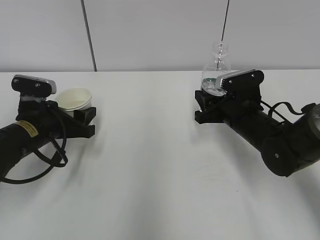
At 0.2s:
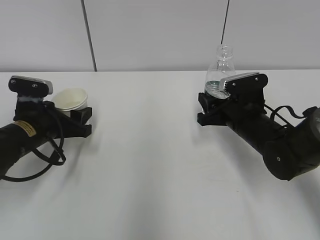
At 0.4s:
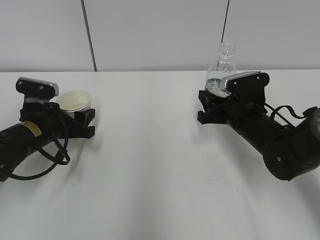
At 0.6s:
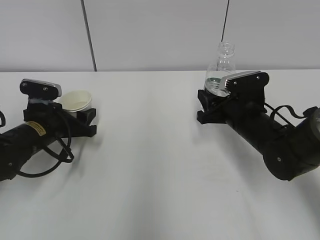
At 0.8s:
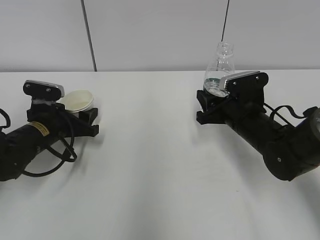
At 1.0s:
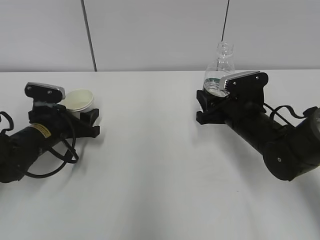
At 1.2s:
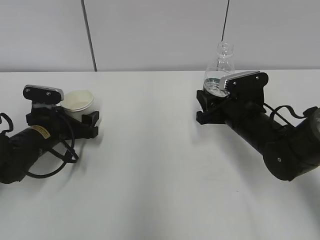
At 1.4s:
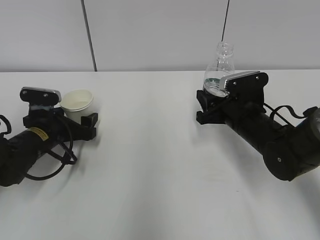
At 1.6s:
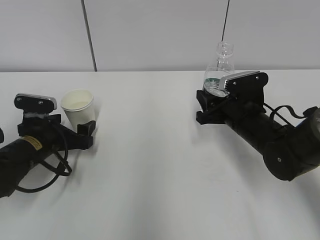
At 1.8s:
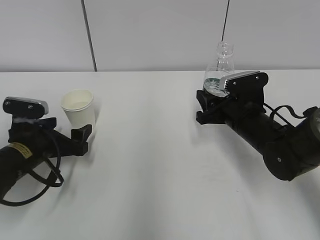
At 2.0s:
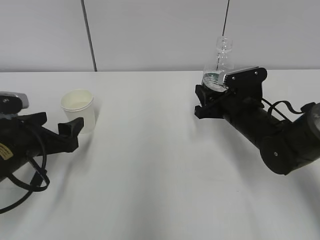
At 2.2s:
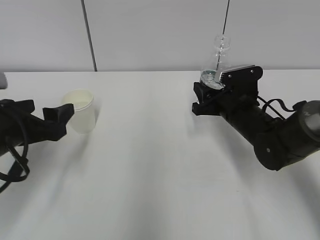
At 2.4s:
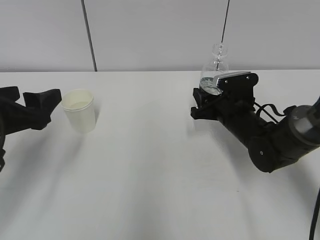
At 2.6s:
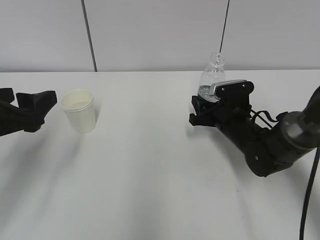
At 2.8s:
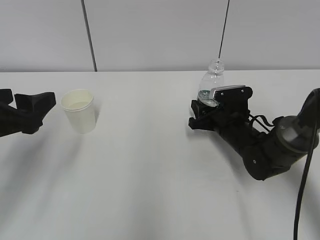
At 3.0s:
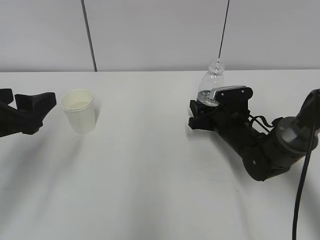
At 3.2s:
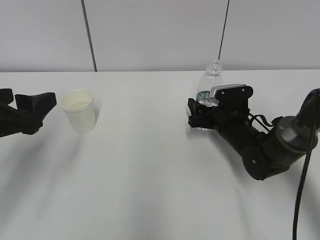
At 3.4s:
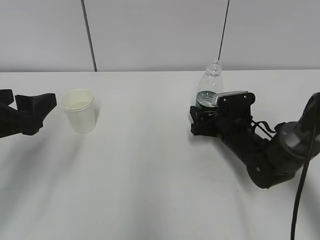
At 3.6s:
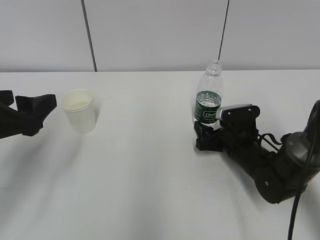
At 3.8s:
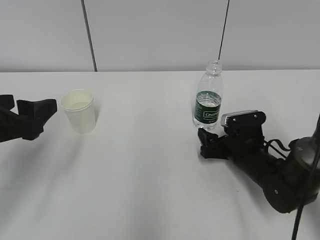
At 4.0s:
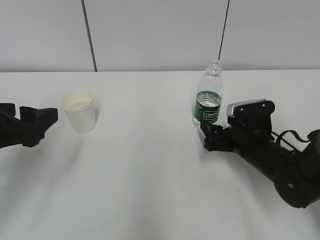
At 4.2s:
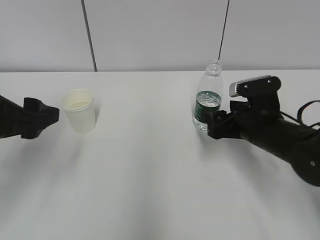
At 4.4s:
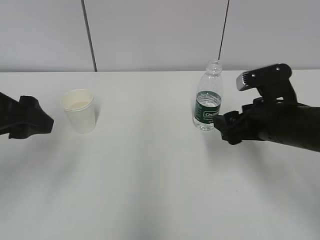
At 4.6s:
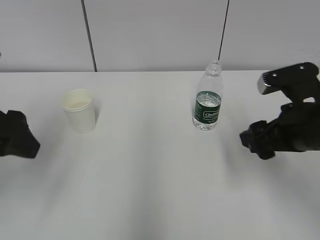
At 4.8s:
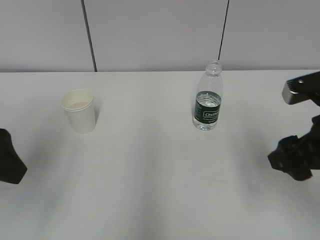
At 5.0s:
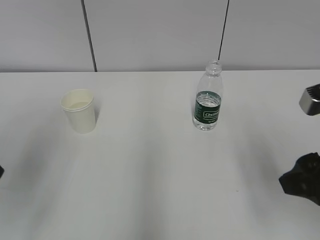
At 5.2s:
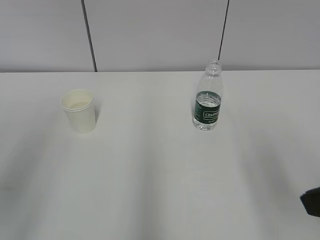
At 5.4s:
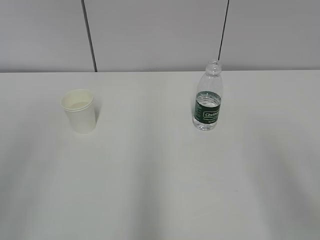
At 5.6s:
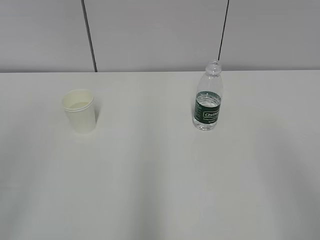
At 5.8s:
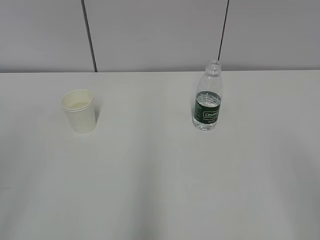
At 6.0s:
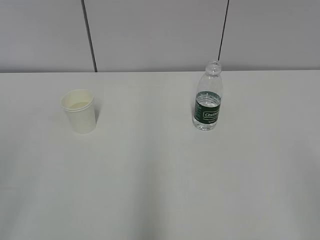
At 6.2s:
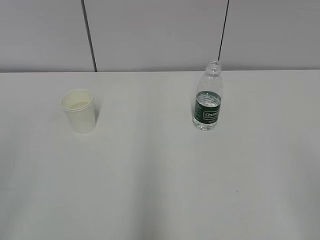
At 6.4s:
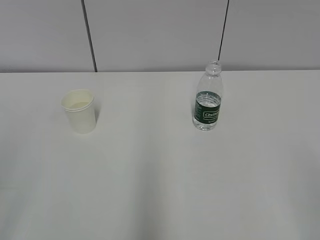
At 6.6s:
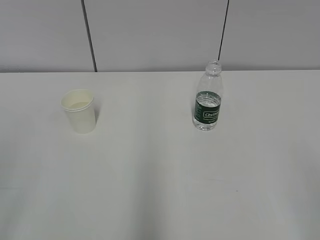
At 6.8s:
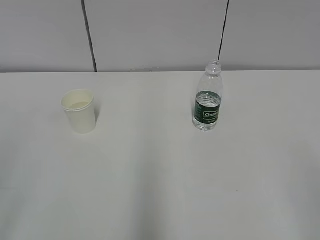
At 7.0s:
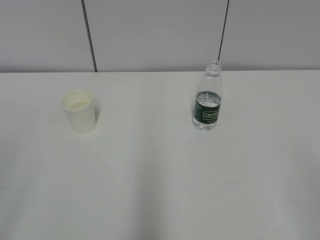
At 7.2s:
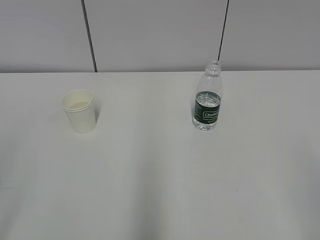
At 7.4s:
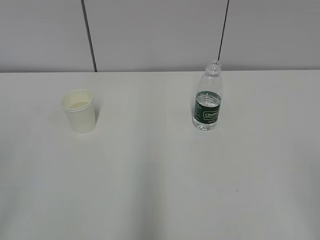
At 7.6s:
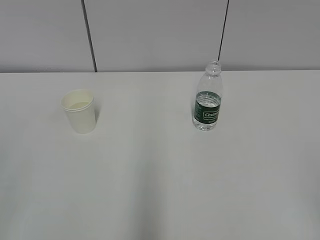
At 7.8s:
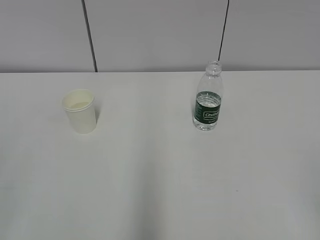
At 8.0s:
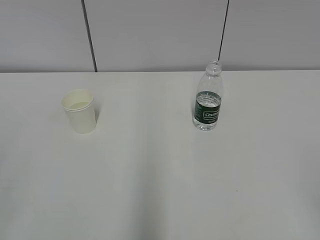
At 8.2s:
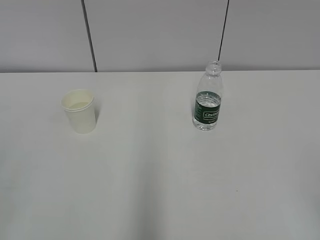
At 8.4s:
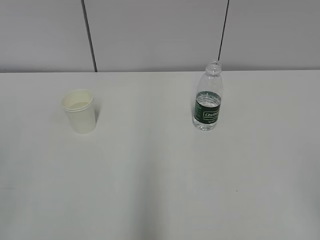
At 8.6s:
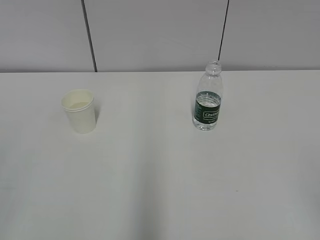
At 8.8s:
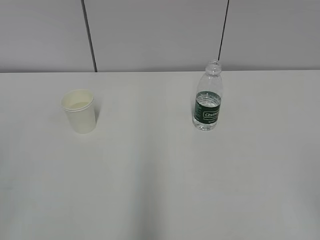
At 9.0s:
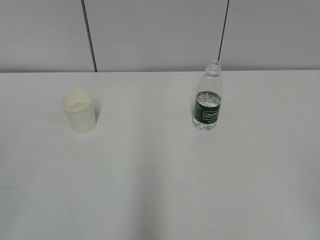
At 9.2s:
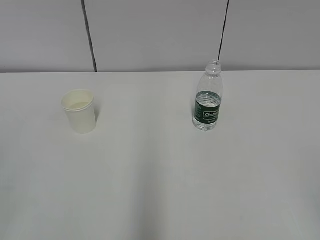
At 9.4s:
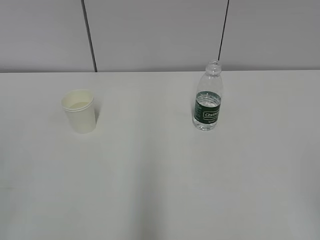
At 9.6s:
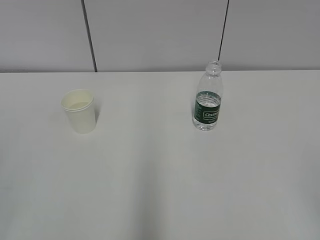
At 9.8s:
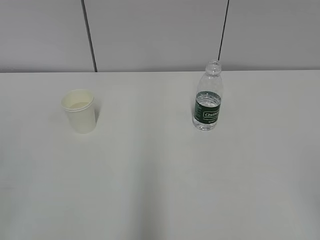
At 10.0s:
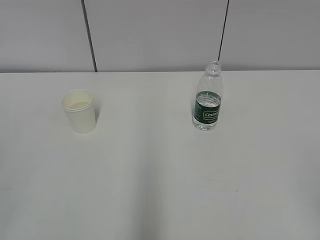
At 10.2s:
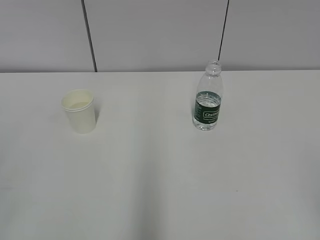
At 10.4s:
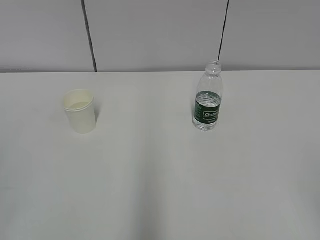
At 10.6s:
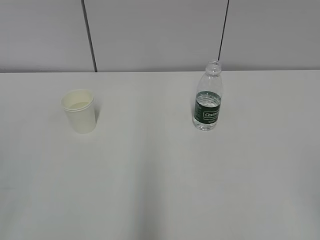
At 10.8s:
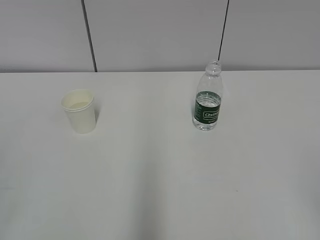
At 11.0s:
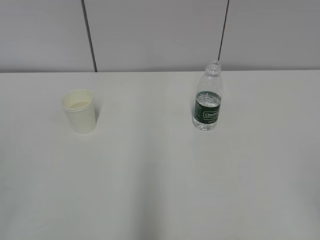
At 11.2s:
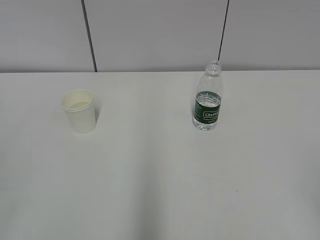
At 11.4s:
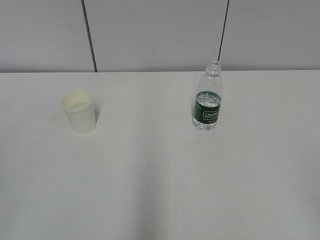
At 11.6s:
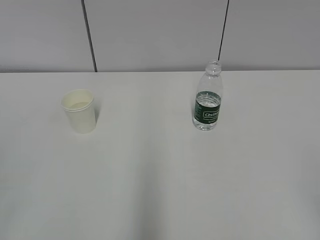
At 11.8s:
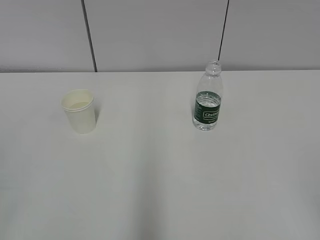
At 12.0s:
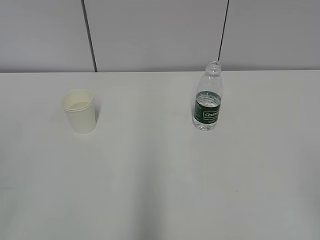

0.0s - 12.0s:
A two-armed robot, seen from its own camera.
0.0s - 1.6s: The left gripper opens its fingers.
1.6s - 3.0s: The left gripper travels upward and backward by some 20 cm; the right gripper goes about 5 cm downward.
3.0s - 4.4s: The right gripper moves upward and backward, roughly 15 cm, and opens.
4.4s - 6.0s: Both grippers move backward, some 25 cm.
7.6s - 12.0s: Neither gripper changes place.

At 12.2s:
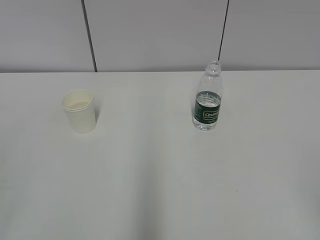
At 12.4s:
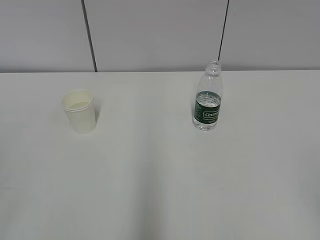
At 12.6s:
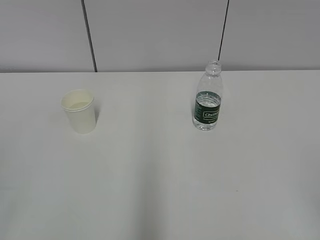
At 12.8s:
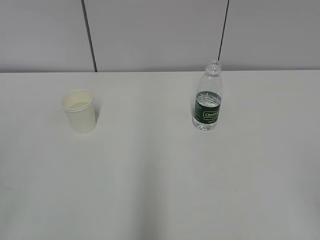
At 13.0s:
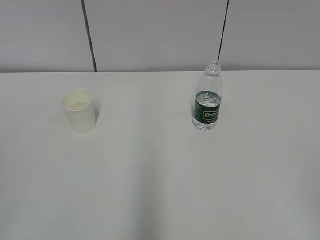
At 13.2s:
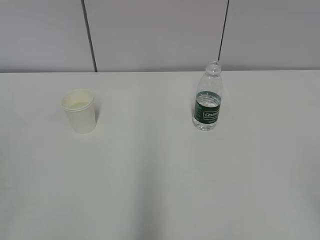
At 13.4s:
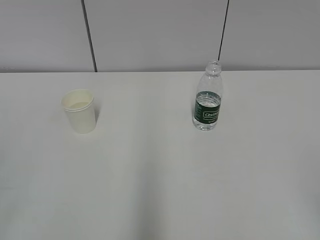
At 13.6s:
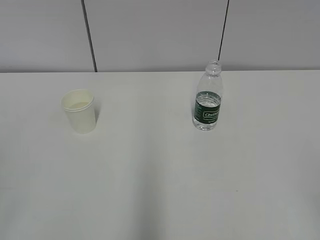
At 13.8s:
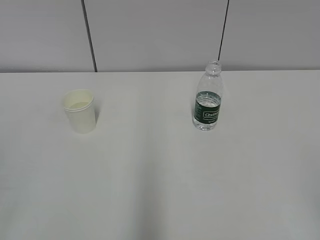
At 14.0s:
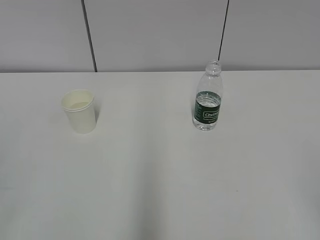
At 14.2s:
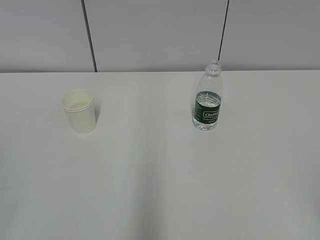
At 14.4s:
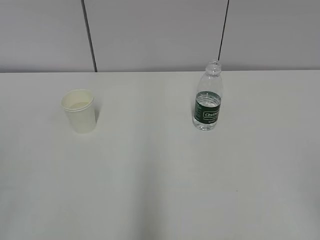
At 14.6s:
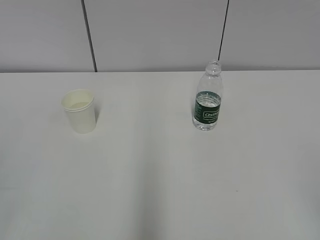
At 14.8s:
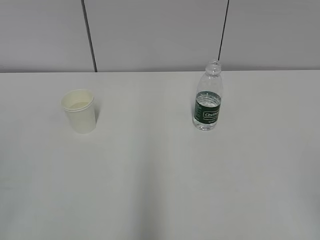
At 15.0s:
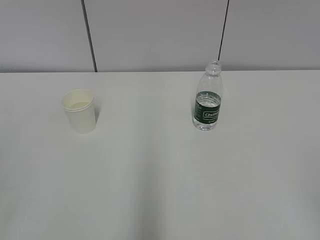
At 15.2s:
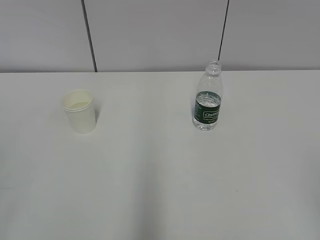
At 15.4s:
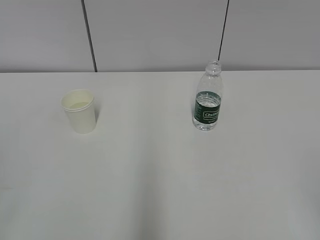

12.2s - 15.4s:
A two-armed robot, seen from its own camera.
12.2s - 15.4s: Both grippers stay put.

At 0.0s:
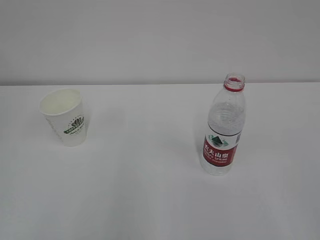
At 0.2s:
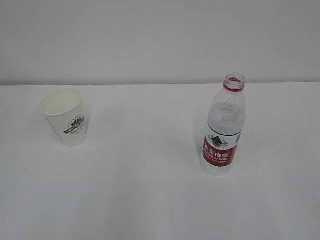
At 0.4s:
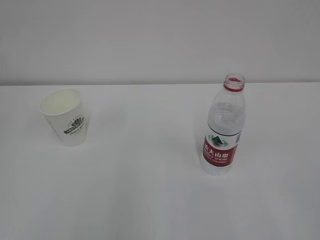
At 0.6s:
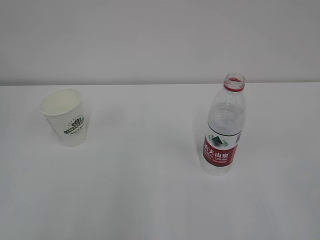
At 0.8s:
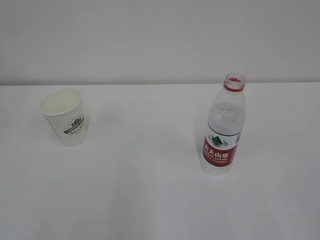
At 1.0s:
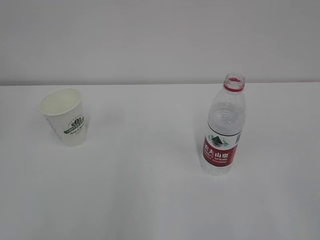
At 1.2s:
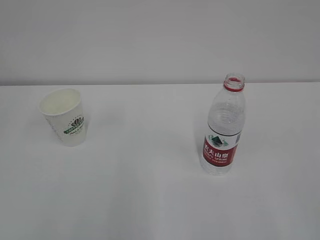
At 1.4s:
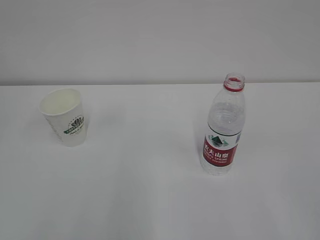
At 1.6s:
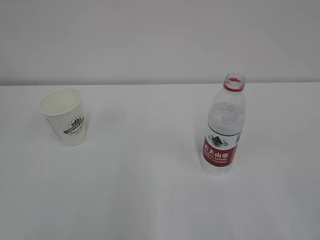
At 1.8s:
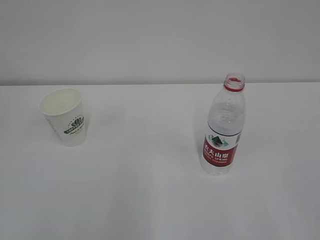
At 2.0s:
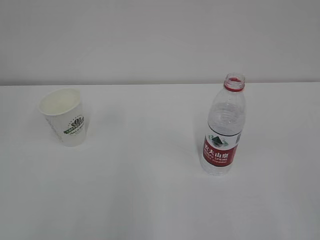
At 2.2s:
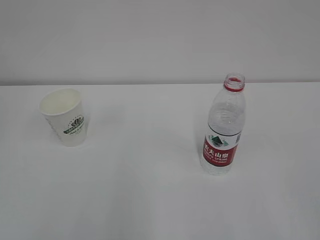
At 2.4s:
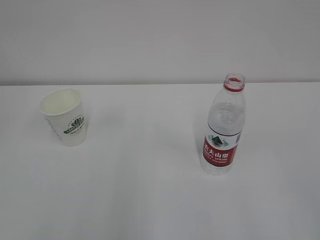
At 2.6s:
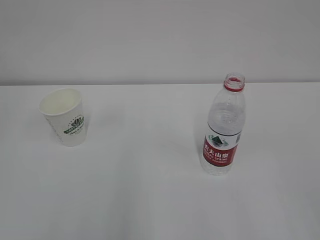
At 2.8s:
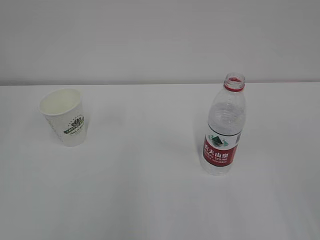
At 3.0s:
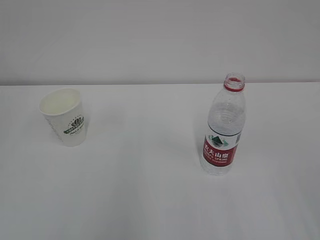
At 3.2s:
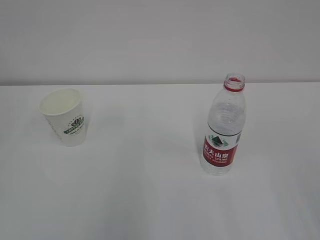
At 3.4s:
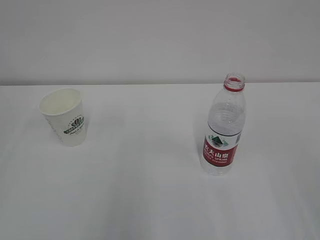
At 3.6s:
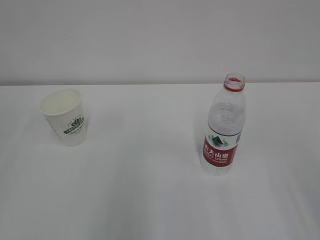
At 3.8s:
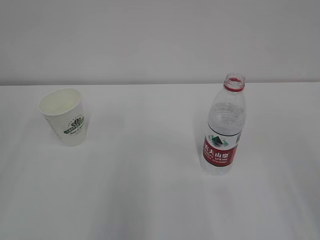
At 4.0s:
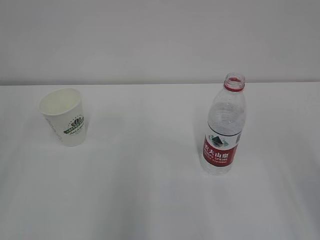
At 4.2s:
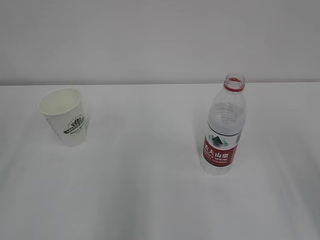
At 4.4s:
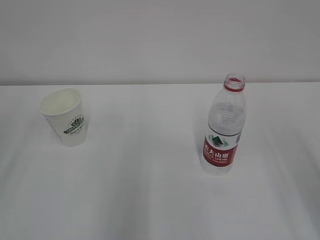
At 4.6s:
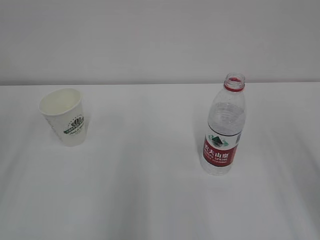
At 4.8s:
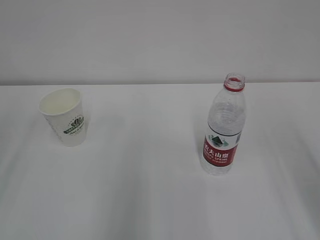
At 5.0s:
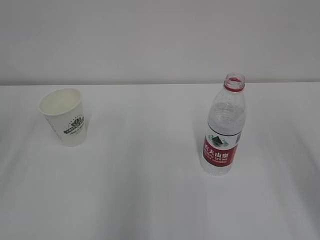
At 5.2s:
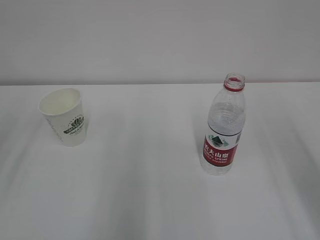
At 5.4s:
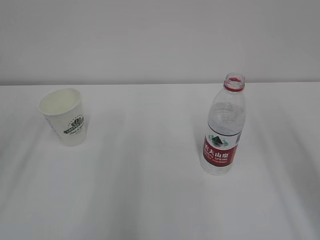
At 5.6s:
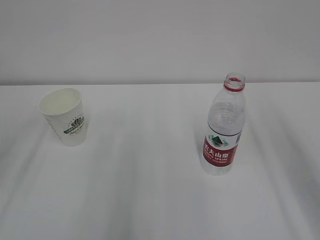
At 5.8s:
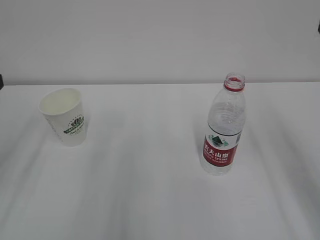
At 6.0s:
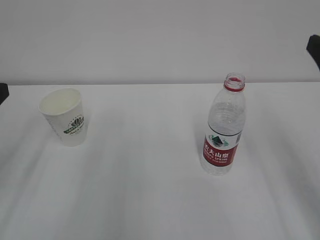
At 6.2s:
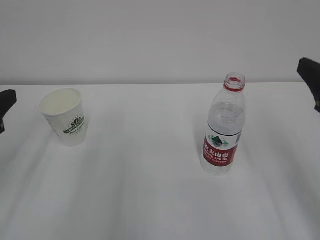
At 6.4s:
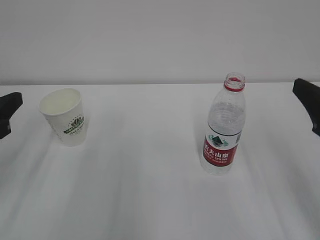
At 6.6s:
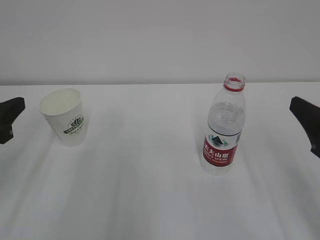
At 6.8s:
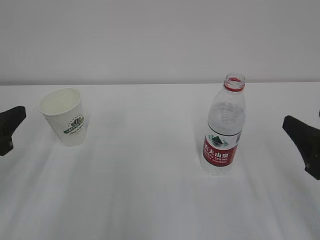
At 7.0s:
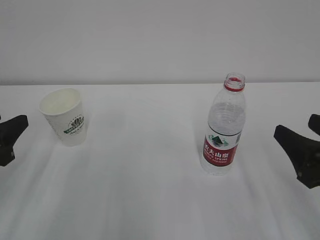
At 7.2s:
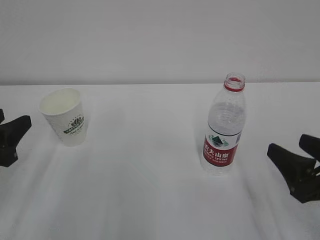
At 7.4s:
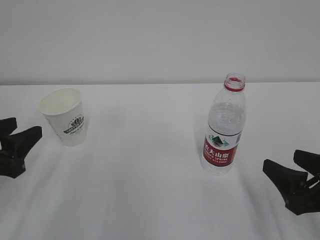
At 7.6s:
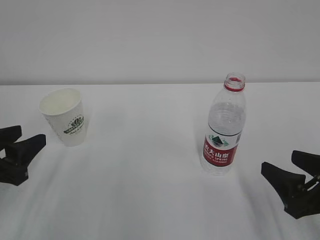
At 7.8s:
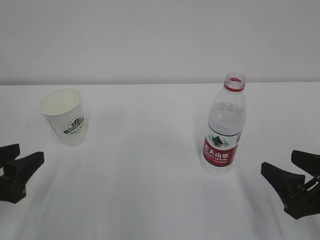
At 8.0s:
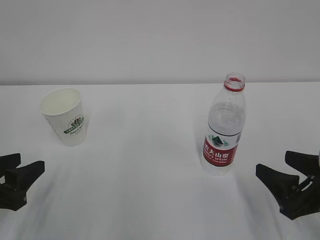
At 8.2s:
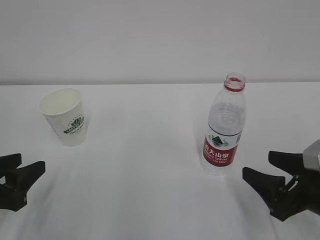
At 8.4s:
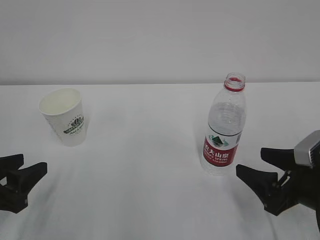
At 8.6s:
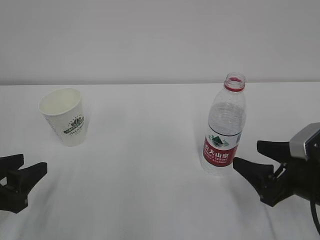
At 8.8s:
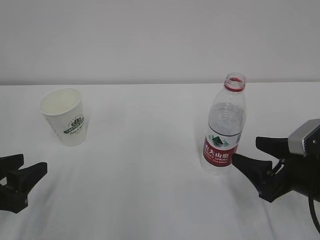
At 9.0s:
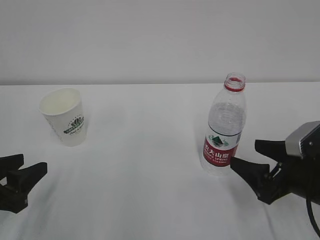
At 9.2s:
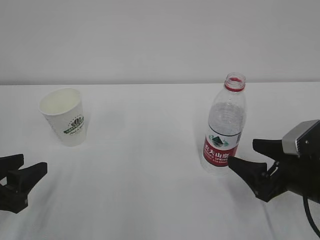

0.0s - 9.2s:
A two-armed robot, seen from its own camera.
4.6s - 6.2s: The right gripper moves downward and forward, approximately 10 cm.
6.2s - 7.6s: The right gripper moves downward, roughly 15 cm; the left gripper shifts approximately 5 cm downward.
7.6s - 9.2s: The right gripper goes some 5 cm forward.
